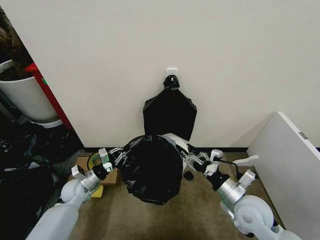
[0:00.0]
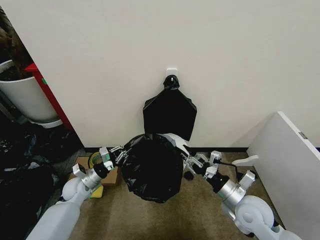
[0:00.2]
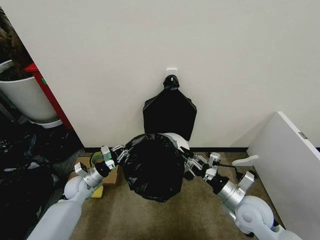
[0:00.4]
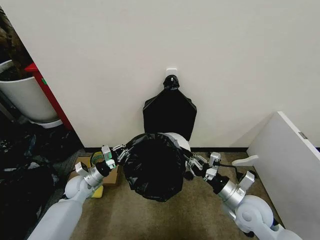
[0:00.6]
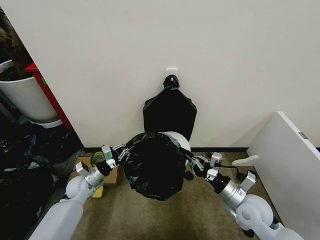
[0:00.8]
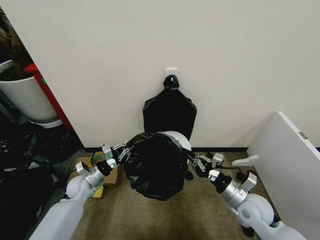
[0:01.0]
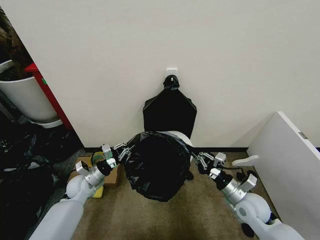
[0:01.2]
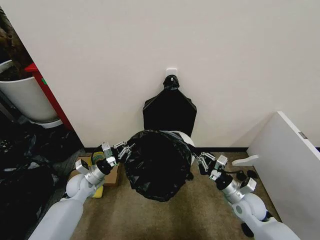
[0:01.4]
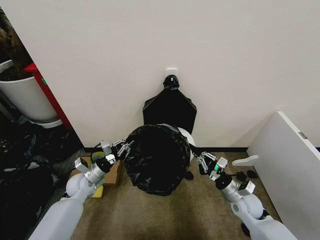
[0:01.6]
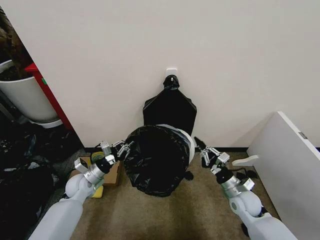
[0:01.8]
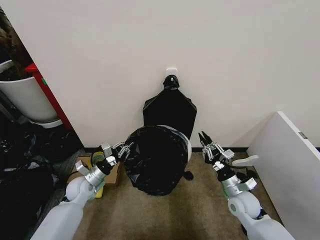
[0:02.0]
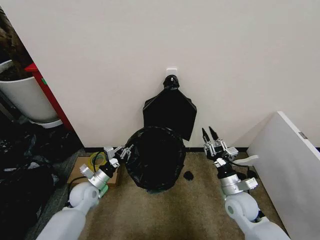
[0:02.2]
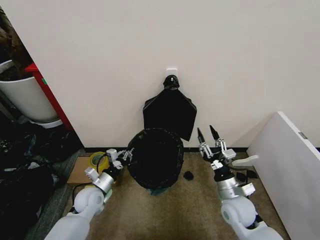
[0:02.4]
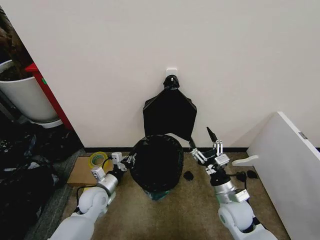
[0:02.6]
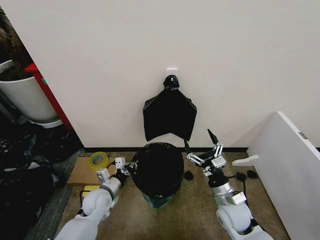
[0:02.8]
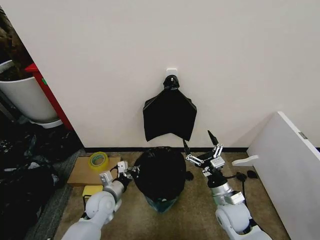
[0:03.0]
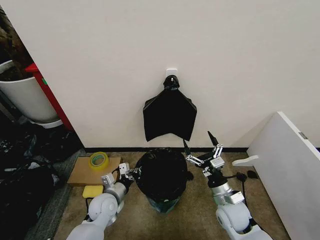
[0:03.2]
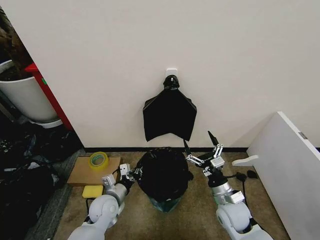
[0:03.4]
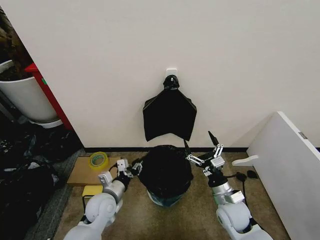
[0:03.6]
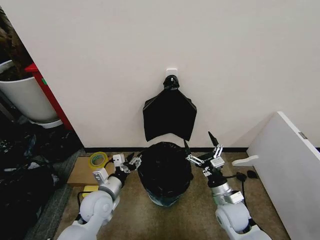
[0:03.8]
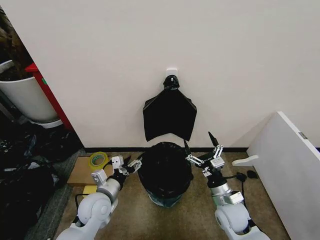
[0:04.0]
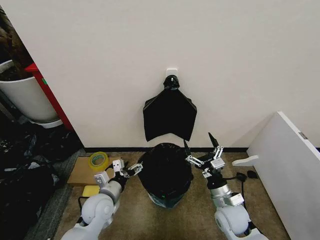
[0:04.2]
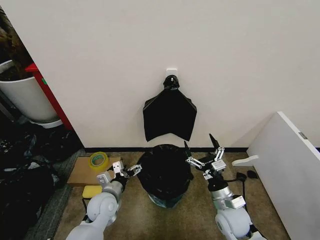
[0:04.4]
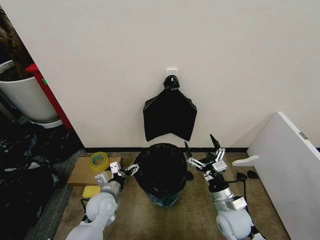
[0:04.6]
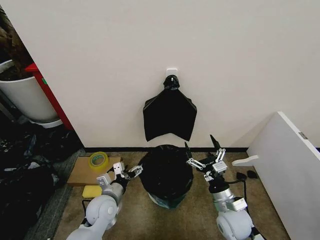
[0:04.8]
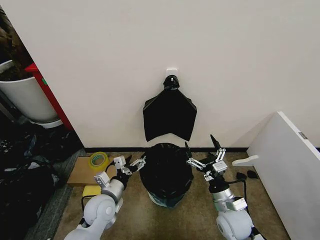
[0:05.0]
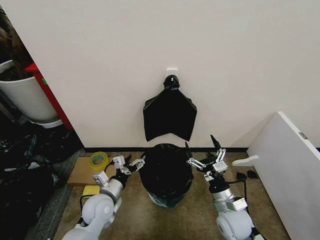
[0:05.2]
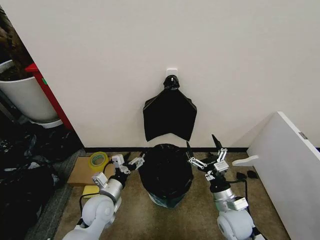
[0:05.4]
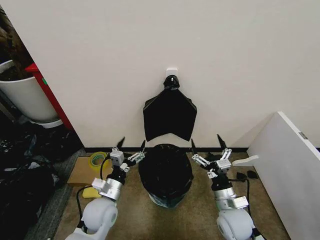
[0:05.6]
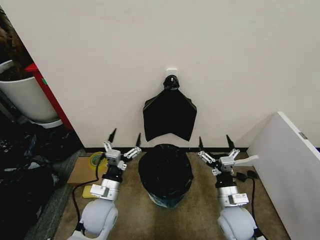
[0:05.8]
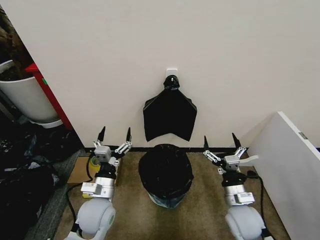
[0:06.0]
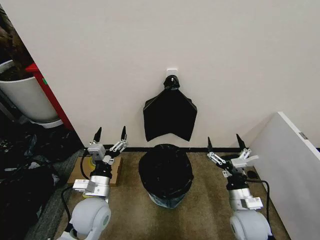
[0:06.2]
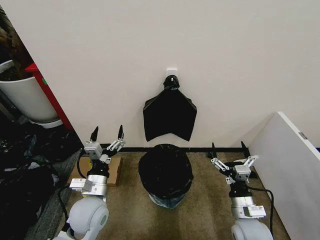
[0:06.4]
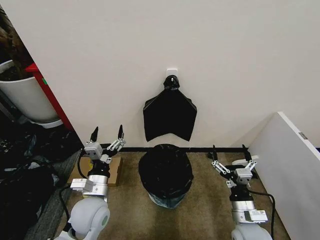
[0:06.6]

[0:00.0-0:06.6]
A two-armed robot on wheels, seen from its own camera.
Task of the whole recording: Place the garbage bag over the trash bin.
0:00.0 to 0:01.6: The right gripper goes roughly 10 cm downward and forward, and closes up.
0:01.6 to 0:03.2: The right gripper shifts approximately 5 cm to the left, and opens. Meanwhile the left gripper moves to the right and backward, approximately 10 cm.
0:03.2 to 0:05.0: The left gripper ends up some 5 cm from where it was, and opens.
0:05.0 to 0:06.6: The right gripper shifts about 5 cm backward, while the left gripper goes roughly 5 cm upward.

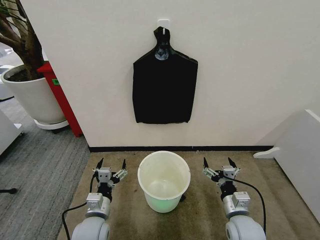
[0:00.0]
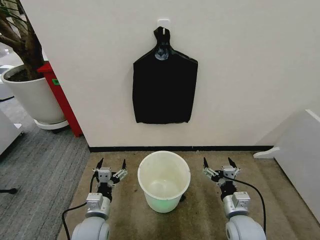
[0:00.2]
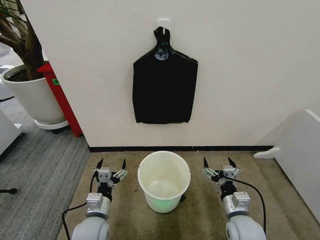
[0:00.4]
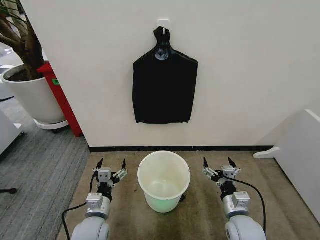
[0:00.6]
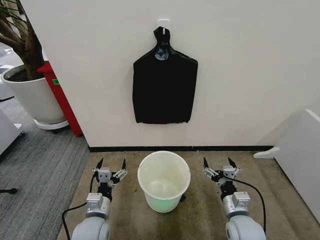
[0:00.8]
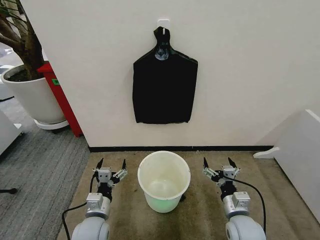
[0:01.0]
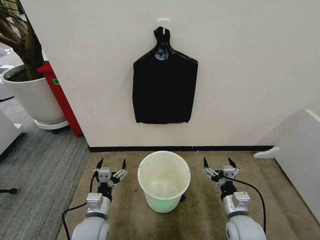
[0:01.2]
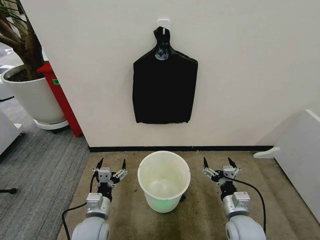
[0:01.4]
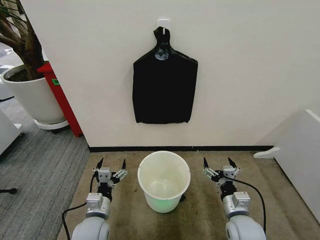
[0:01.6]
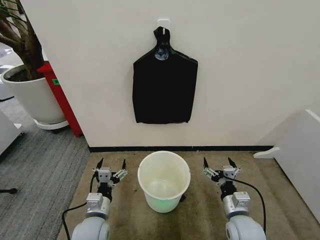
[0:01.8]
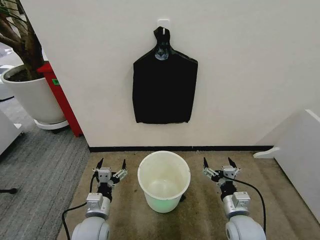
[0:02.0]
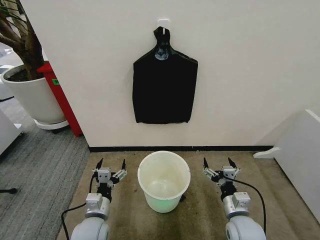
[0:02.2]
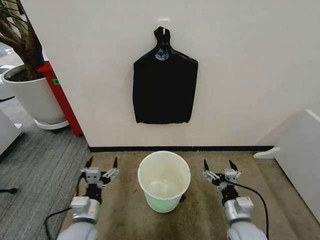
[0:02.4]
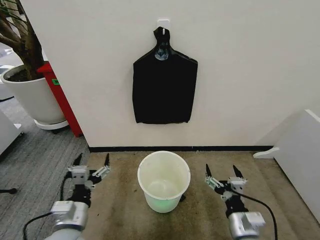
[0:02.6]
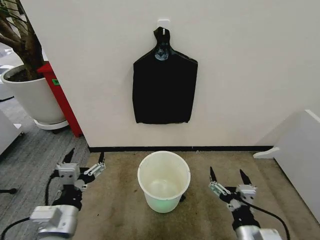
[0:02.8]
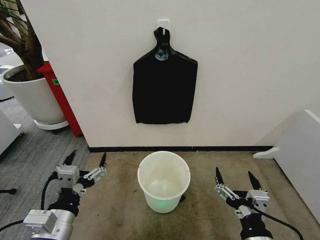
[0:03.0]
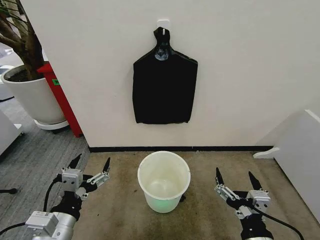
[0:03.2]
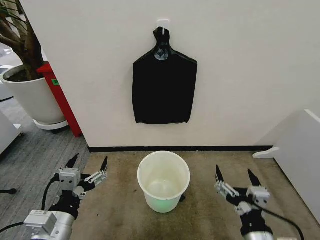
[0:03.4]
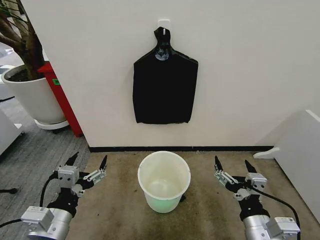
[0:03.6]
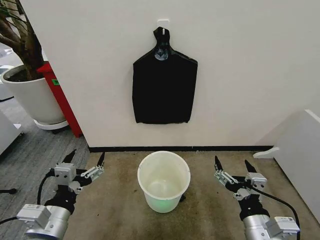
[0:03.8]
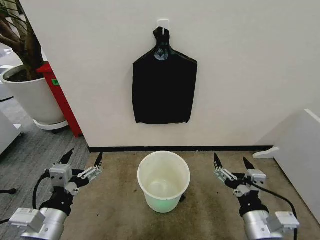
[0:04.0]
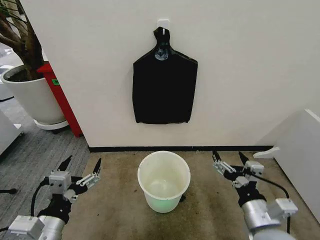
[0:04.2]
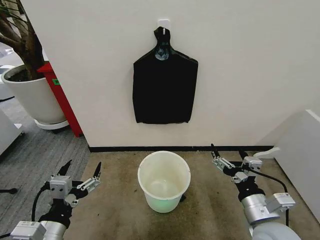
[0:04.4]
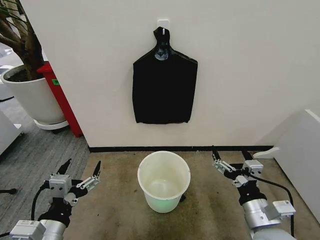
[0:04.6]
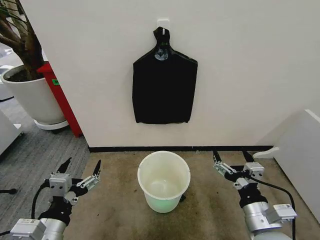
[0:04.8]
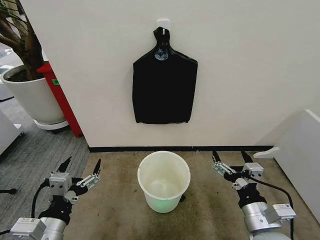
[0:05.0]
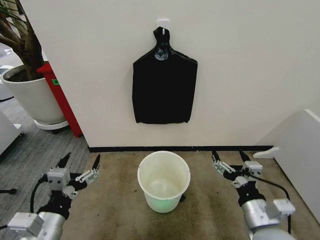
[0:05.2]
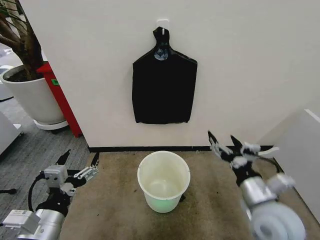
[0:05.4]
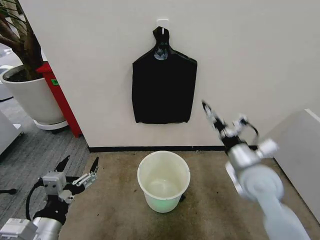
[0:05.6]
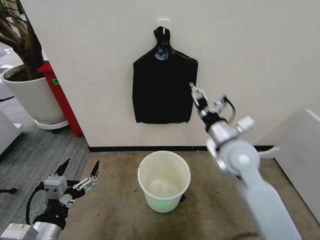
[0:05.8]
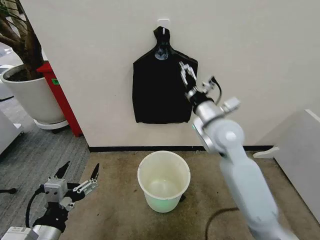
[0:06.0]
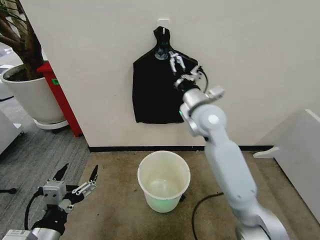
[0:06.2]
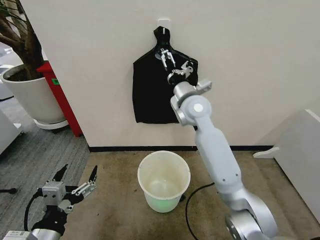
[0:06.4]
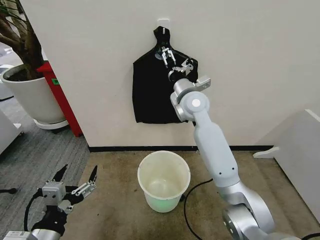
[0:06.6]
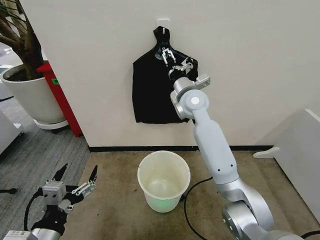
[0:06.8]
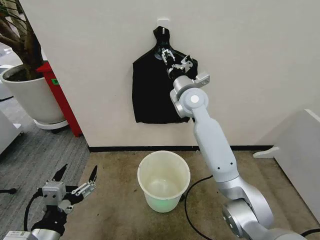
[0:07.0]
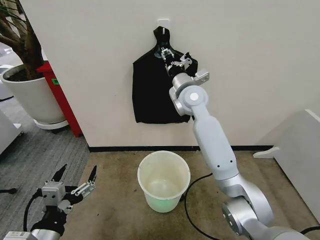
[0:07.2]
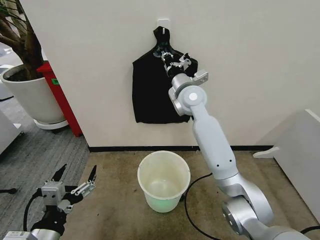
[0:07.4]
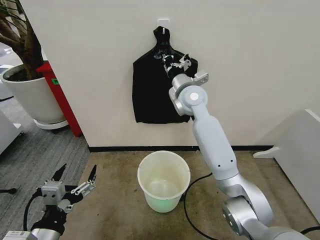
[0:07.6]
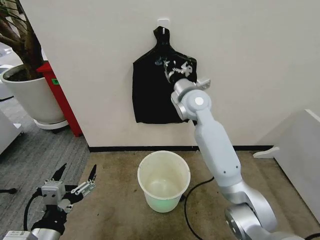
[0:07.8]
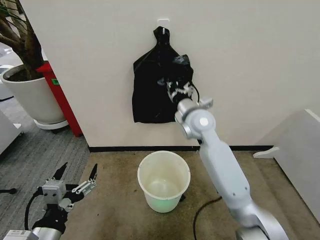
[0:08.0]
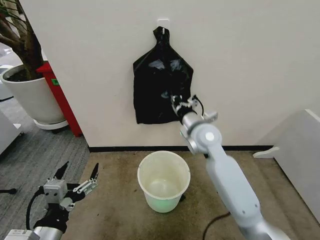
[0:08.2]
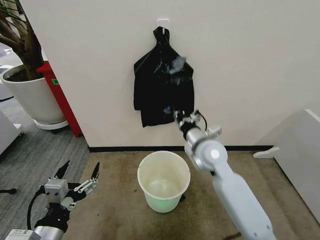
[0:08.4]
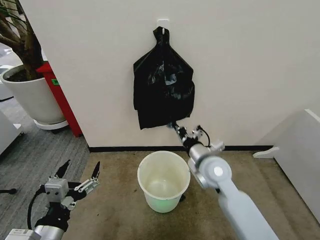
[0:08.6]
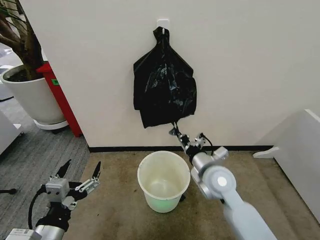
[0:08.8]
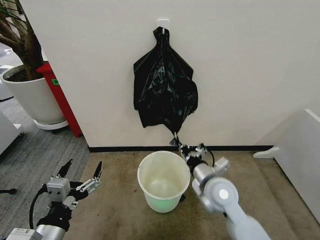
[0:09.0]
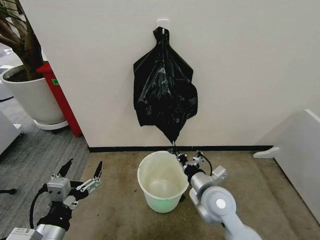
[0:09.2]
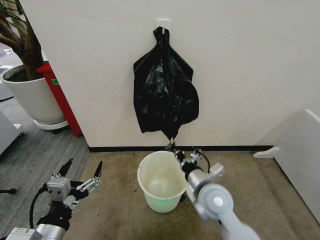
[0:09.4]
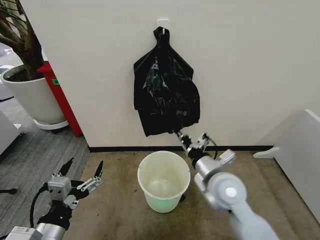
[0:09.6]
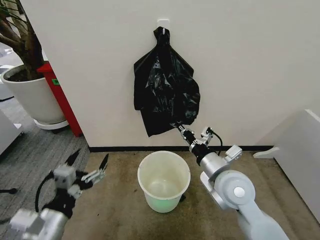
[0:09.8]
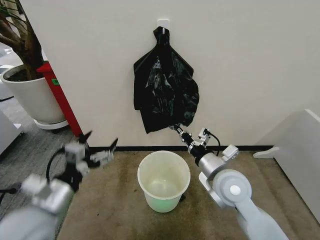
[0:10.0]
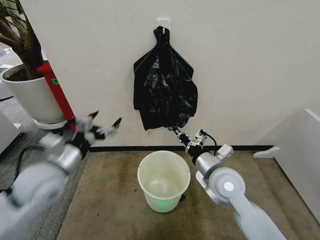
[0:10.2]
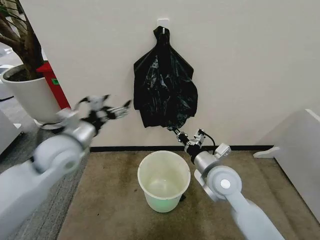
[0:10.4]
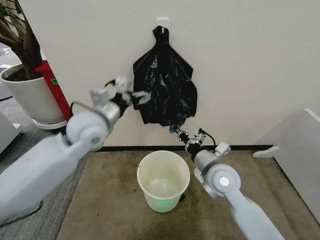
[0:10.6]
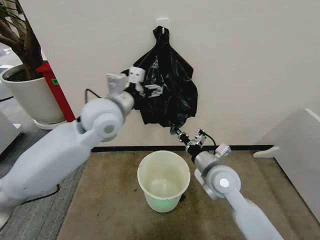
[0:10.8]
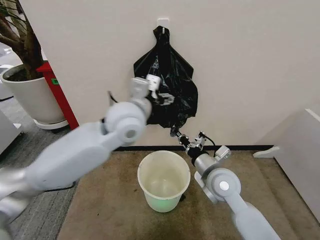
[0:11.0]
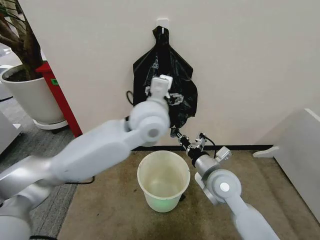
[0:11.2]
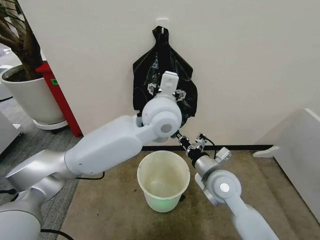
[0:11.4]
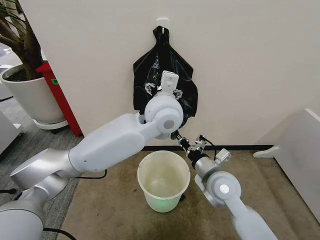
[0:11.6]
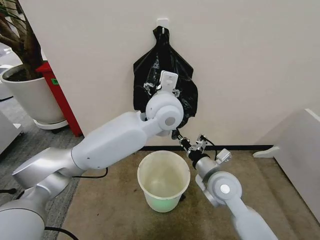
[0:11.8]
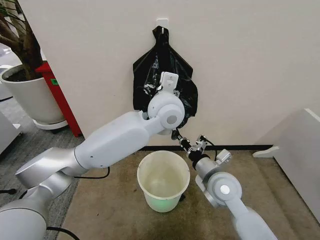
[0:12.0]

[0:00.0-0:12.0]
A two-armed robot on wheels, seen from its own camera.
Task of the whole recording: Place the garbage bag over the trash bin.
0:01.6 to 0:03.0: The right gripper heads backward and upward, covering about 15 cm; the left gripper goes some 15 cm upward and backward.
0:03.0 to 0:04.4: The right gripper heads forward, covering approximately 10 cm.
0:04.4 to 0:06.0: The right gripper shifts approximately 25 cm forward, upward and to the left.
0:06.0 to 0:07.6: The right gripper goes about 15 cm forward and to the left, and closes its fingers.
0:07.6 to 0:09.0: The right gripper goes roughly 30 cm backward and downward.
0:09.0 to 0:10.4: The left gripper travels forward by some 25 cm.
0:10.4 to 0:12.0: The left gripper shifts about 25 cm to the right.

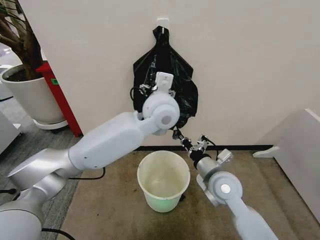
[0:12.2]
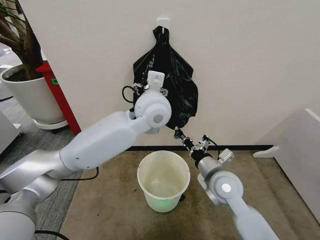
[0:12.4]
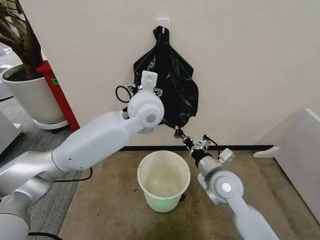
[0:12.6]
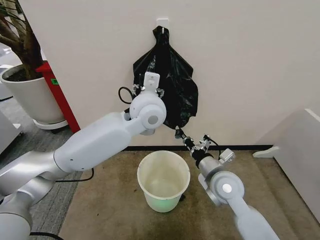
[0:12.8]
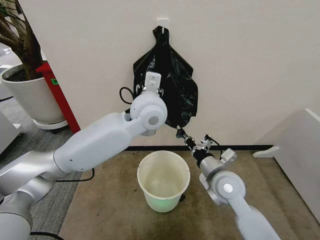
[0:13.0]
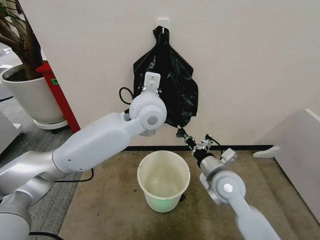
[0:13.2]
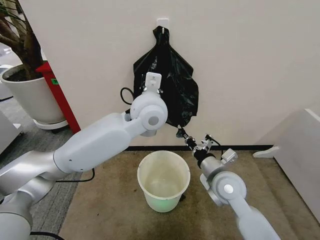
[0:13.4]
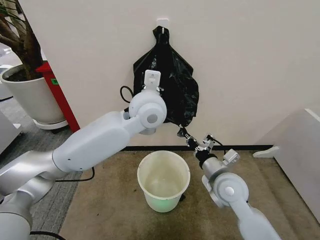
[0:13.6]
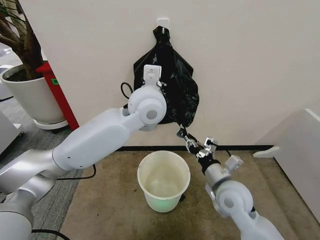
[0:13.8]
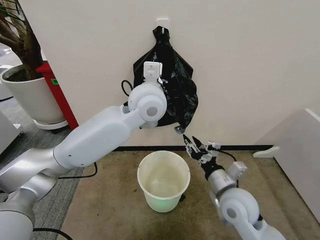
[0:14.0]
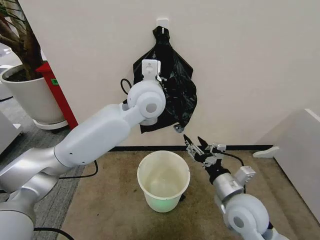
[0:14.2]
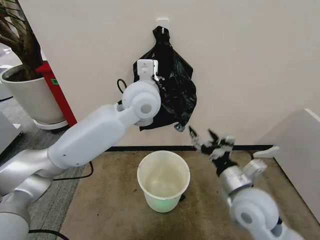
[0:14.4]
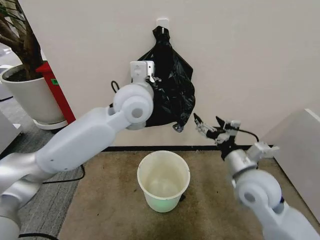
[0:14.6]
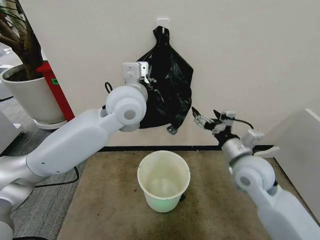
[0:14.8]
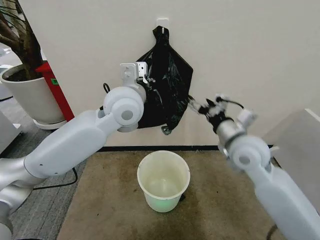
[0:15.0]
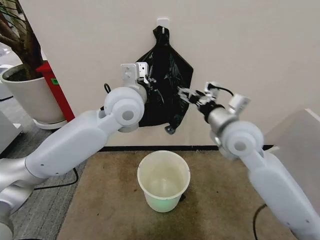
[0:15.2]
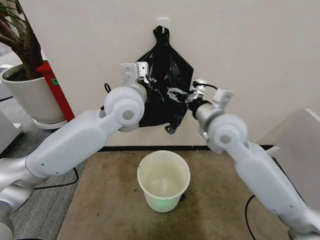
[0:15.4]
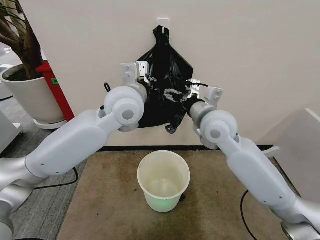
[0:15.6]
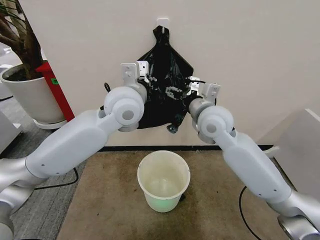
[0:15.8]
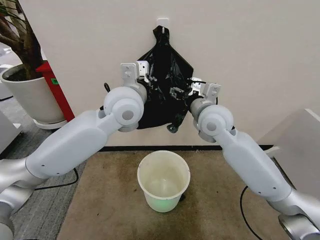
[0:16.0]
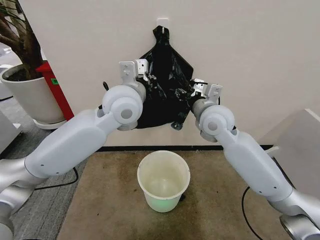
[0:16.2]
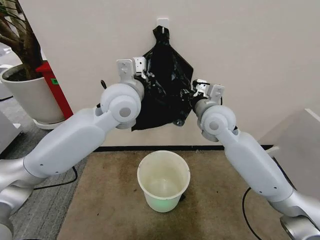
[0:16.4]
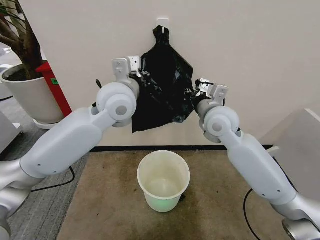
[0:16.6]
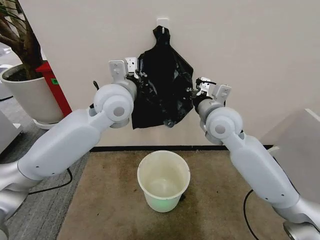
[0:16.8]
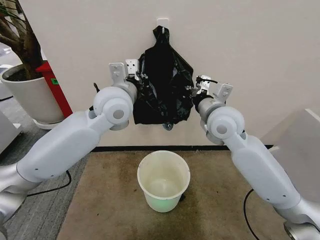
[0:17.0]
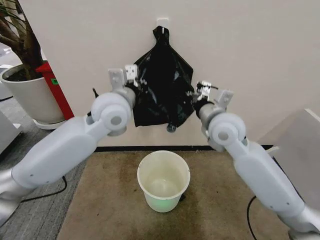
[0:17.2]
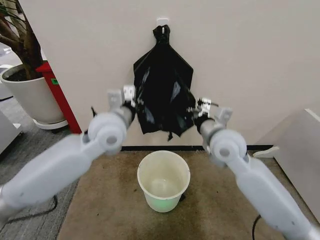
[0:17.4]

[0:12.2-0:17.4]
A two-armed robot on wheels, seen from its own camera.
Task of the whole recording: Place the garbage bag over the trash bin.
0:12.2 to 0:14.0: The left gripper closes its fingers. Meanwhile the right gripper travels backward by roughly 5 cm, and opens up.
0:14.0 to 0:15.6: The right gripper shifts some 20 cm upward and forward, and opens up. The left gripper shifts roughly 5 cm to the left.
0:15.6 to 0:17.4: The right gripper changes place by about 5 cm, and closes up. Meanwhile the left gripper shifts about 5 cm downward.
